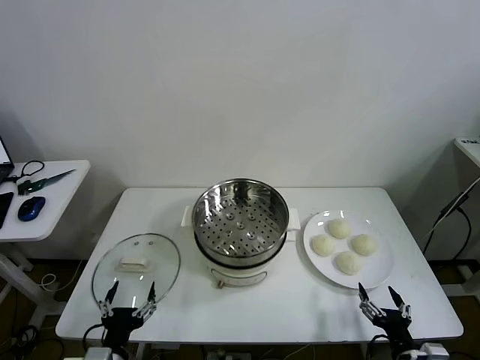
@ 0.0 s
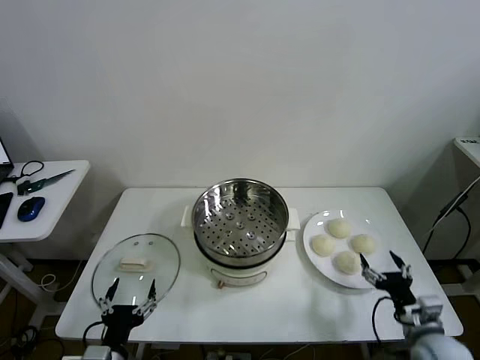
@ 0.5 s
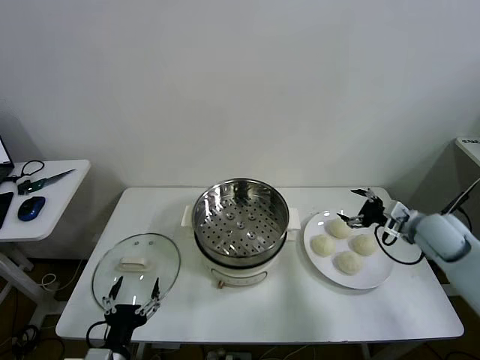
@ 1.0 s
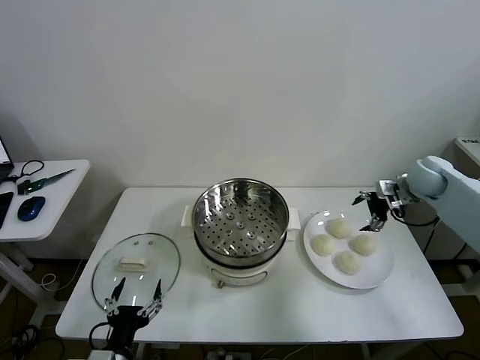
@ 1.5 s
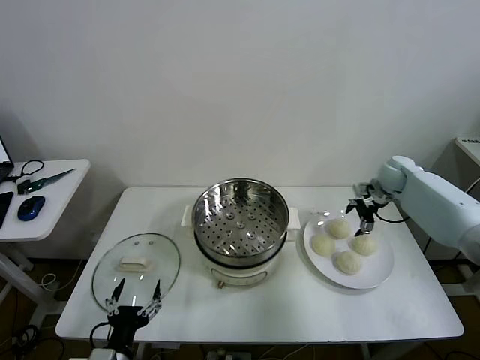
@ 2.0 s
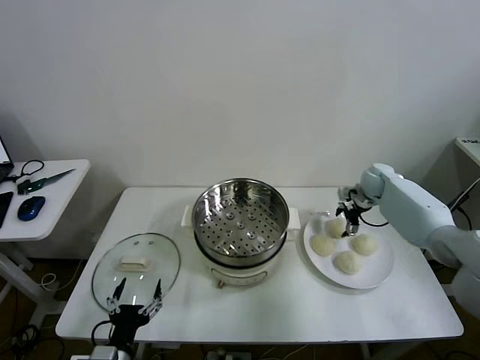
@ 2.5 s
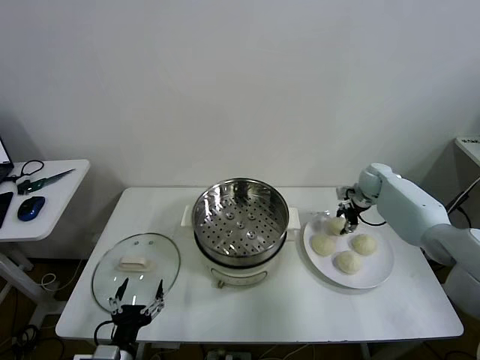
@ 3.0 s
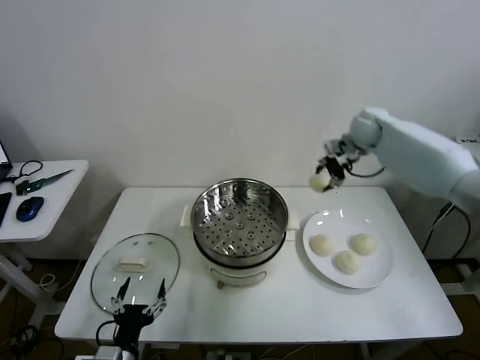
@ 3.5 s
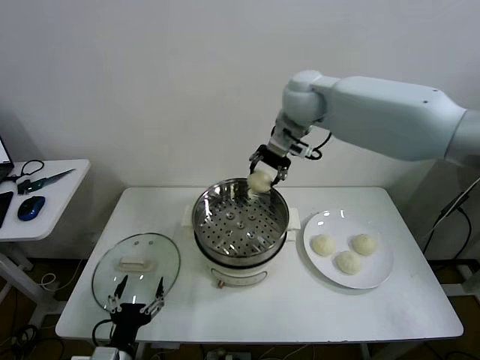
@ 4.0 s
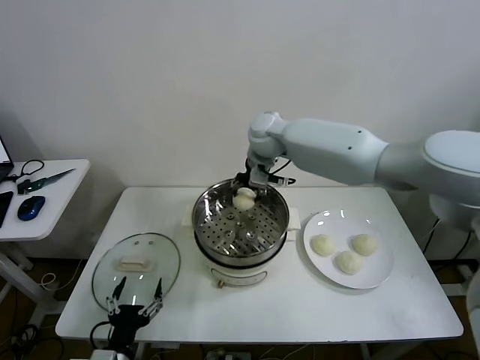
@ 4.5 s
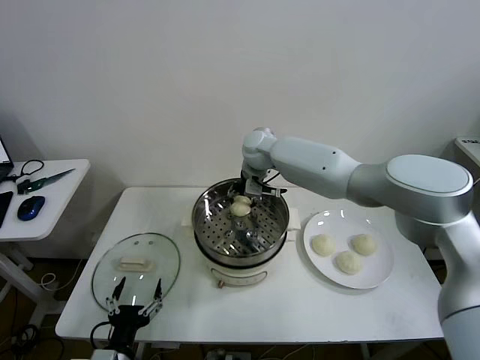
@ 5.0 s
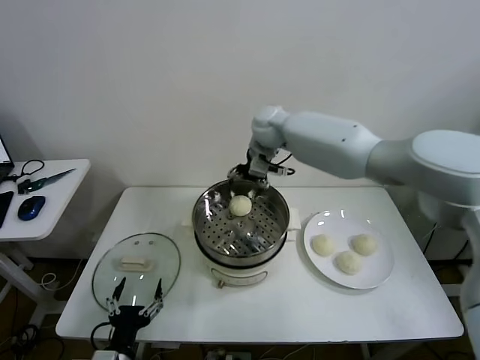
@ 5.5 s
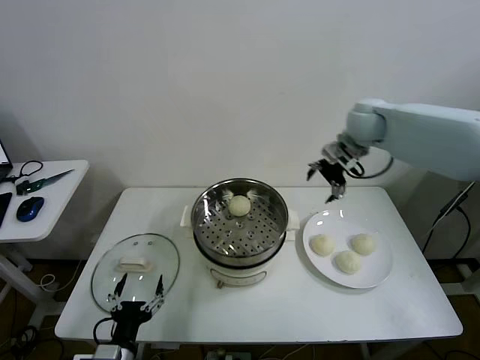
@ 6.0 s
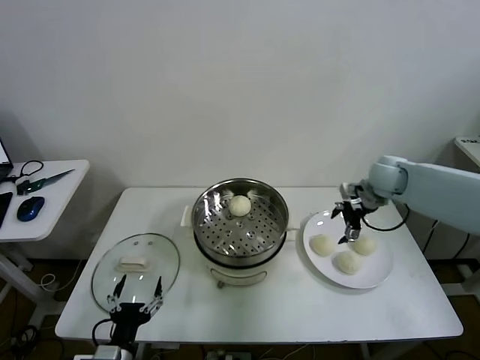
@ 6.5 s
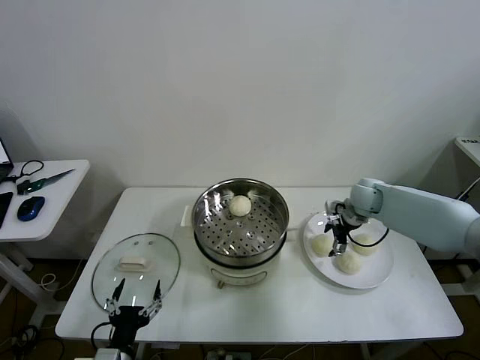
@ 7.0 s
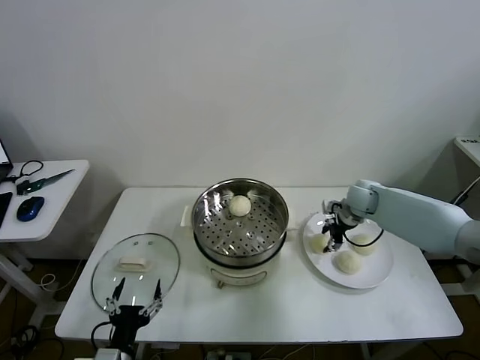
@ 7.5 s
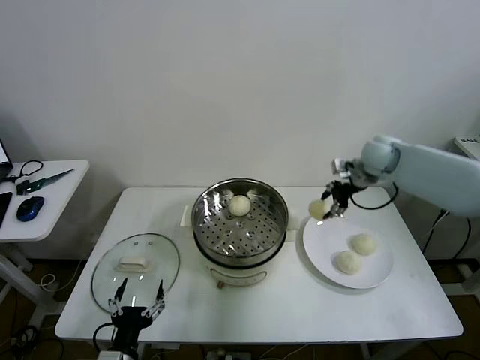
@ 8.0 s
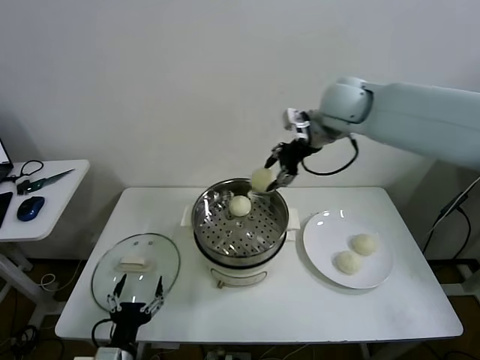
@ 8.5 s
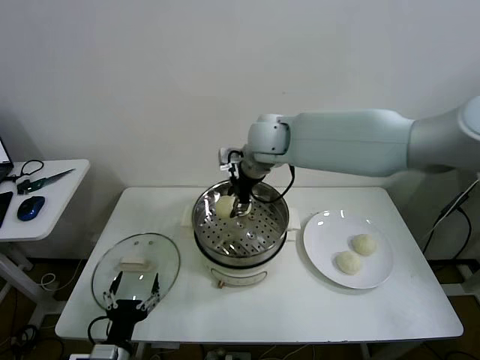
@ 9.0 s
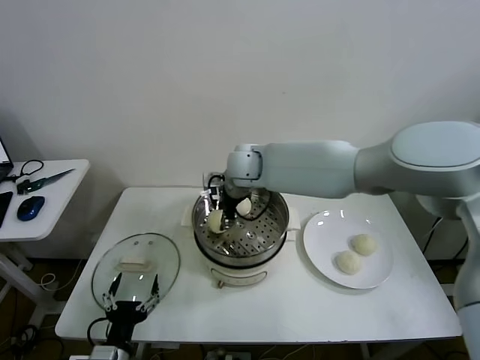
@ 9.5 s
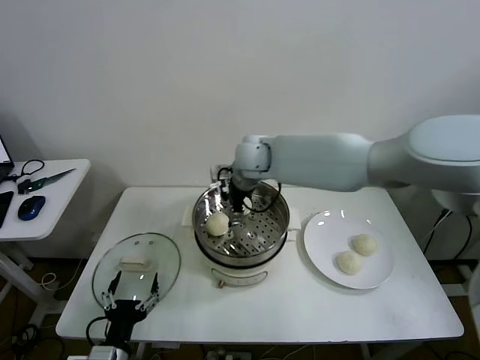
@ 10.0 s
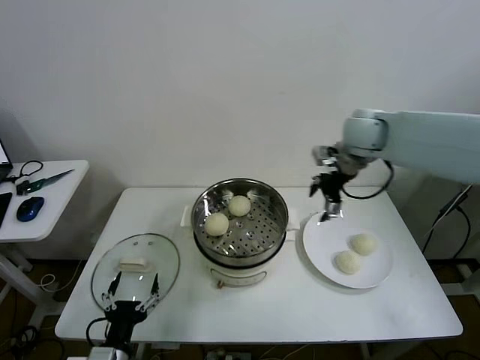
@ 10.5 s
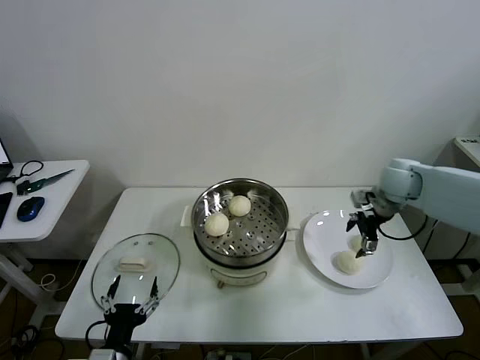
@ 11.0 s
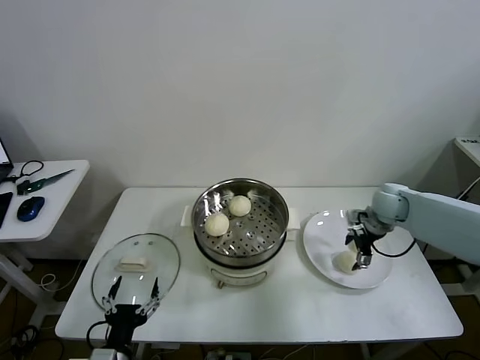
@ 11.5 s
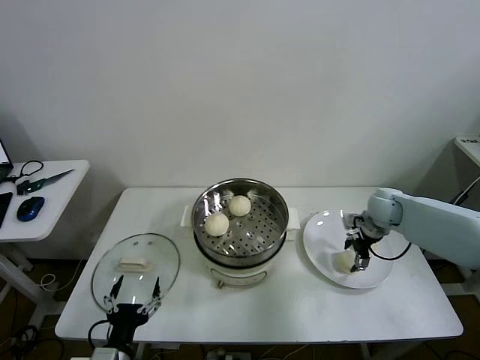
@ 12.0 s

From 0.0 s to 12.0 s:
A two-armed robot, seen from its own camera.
Task of the whole recording: take steamed baozi put them in steamer then cover it.
Step, from 0.0 s to 2.5 s: Grasp the baozi in the plate with right gripper.
Step, from 3.0 s to 5.0 s: Place the baozi on the steamer with right gripper.
Step, from 5.5 s to 7.0 s: Grasp the baozi in the plate with right gripper.
Step, from 7.5 s to 9.5 s: Place the baozi on the steamer with right gripper.
From 2.0 s to 4.0 s: The right gripper is displaced to the left and upward by approximately 40 cm, and closes up.
From 4.0 s to 6.0 s: The right gripper goes about 20 cm to the right, and opens its fingers.
From 6.0 s to 8.0 s: The right gripper moves roughly 20 cm downward and comes back, and closes its fingers.
From 8.0 s to 10.0 s: The right gripper travels to the left by about 30 cm, and opens up.
From 10.0 s to 12.0 s: The right gripper travels to the right and downward by about 35 cm.

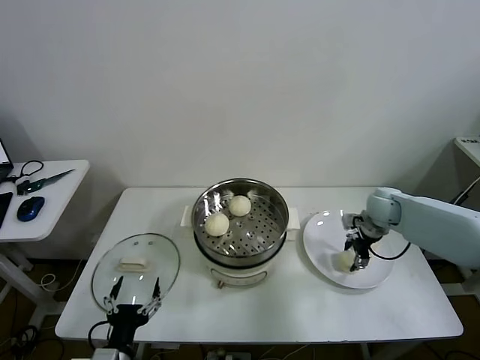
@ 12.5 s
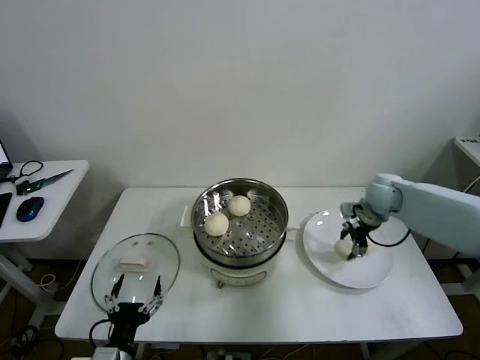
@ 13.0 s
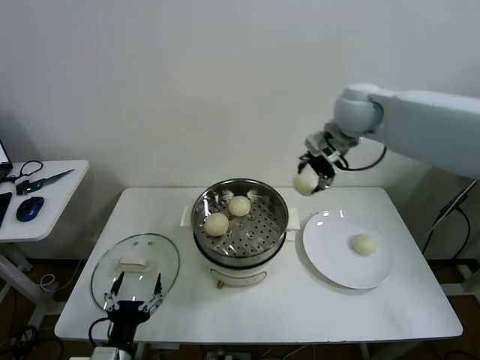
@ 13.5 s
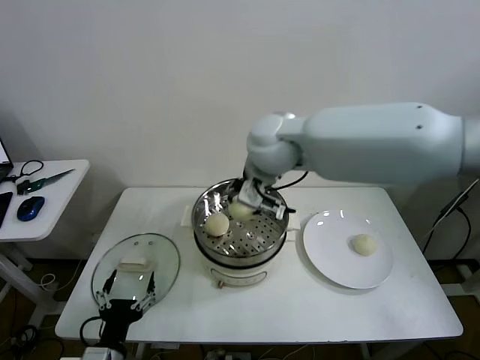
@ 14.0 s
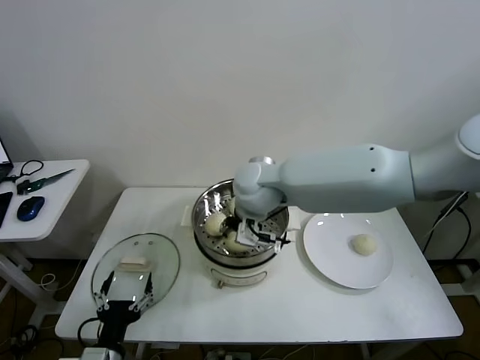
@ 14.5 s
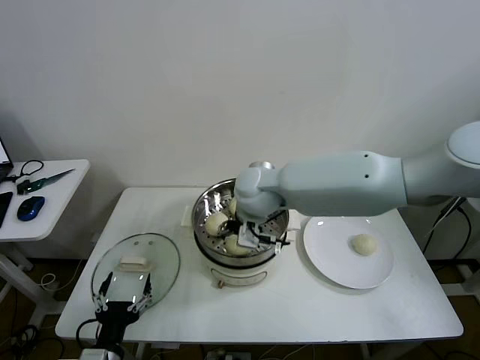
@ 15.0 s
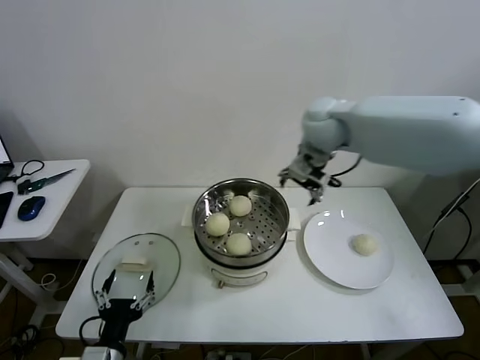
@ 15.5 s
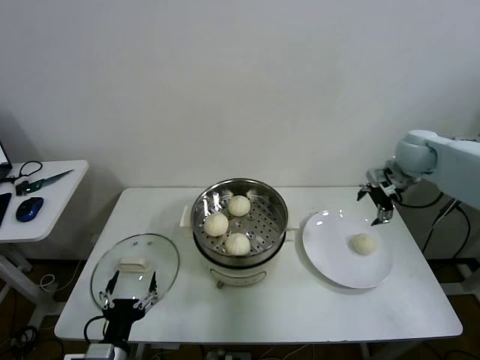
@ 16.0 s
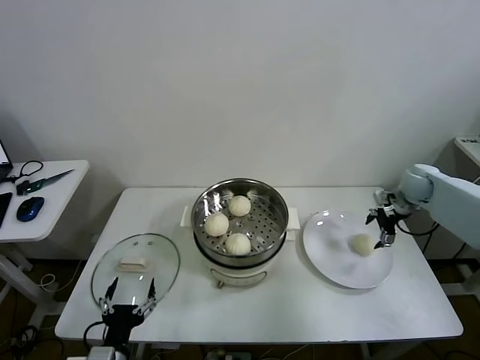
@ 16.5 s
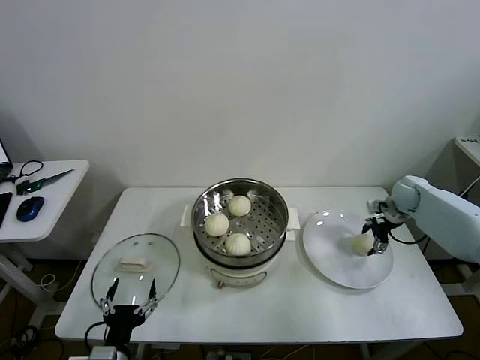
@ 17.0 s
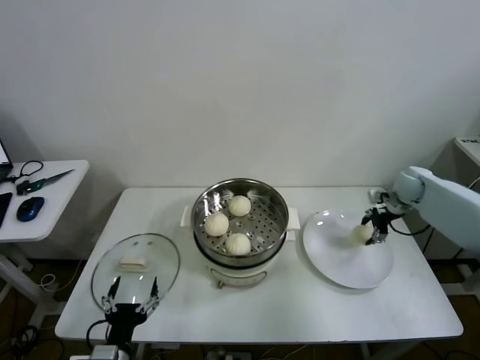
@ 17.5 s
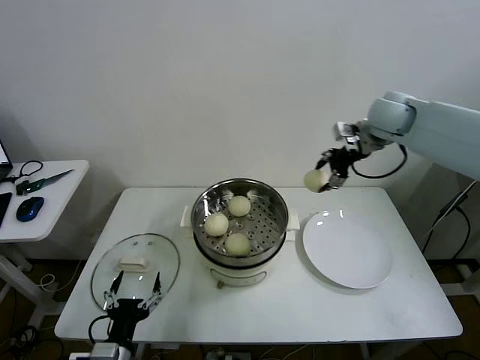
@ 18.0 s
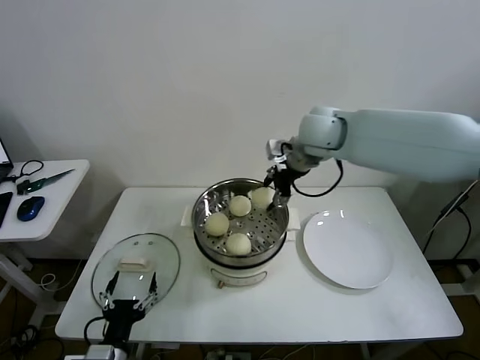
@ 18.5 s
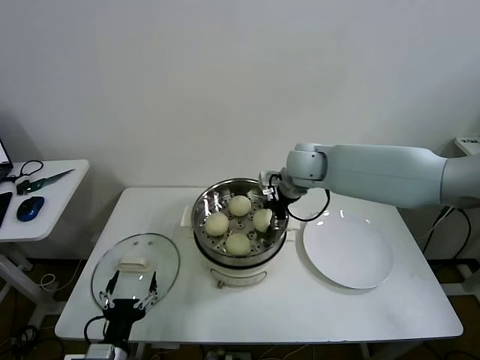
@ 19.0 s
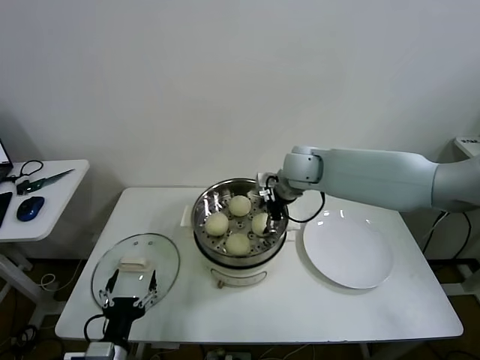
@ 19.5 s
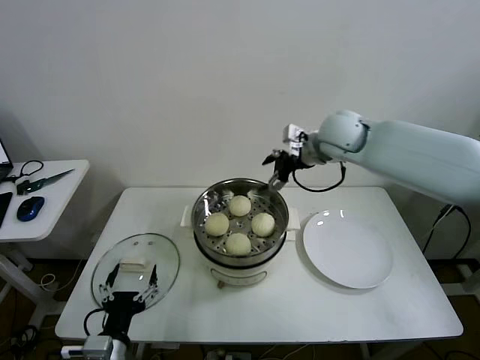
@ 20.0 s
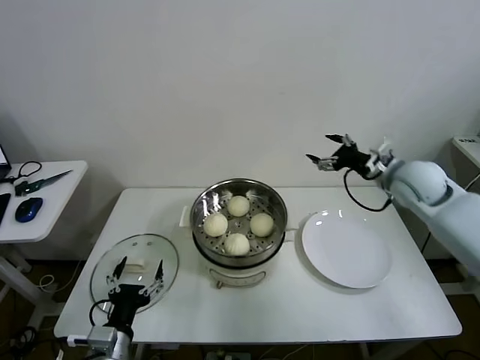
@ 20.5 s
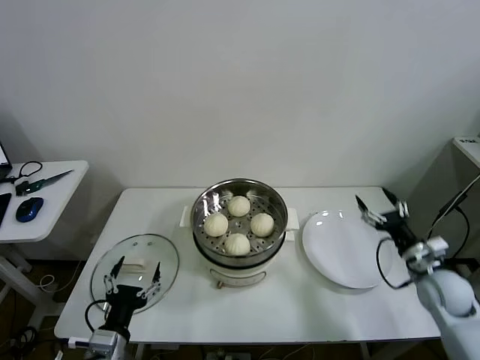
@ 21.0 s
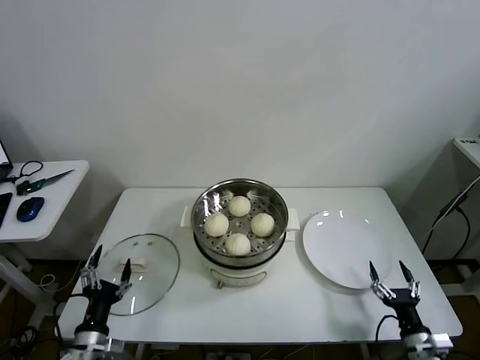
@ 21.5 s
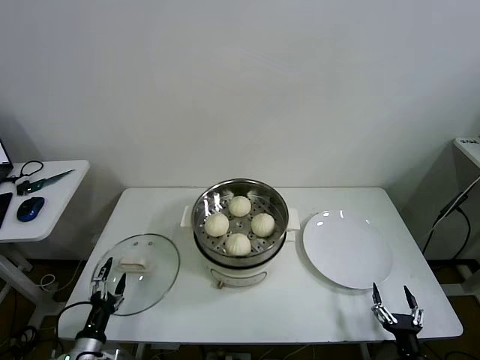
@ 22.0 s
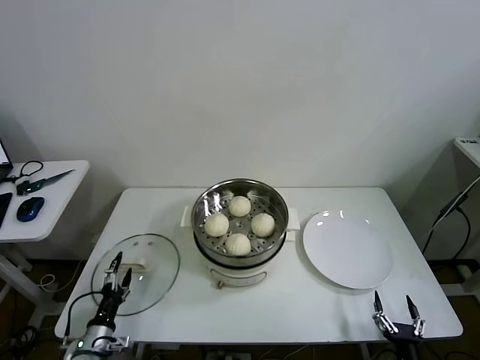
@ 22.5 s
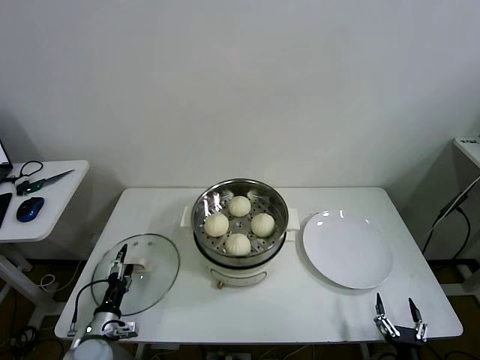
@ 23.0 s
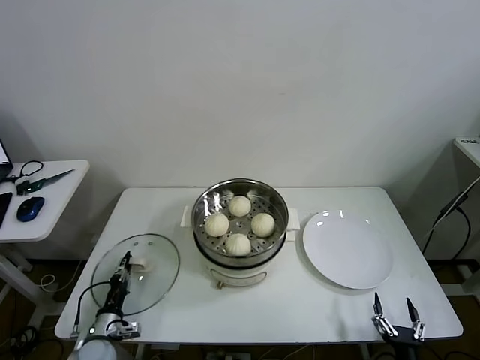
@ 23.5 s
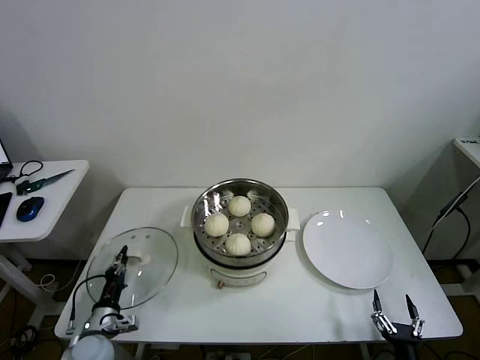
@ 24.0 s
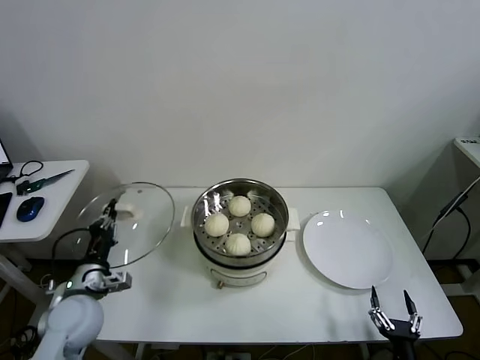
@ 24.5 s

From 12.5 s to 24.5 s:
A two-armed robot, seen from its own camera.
Task of the whole recording: take steamed baozi put them in steamer then cover it.
Step, from 12.5 s to 14.5 s: Place the baozi on the steamer with right gripper.
Step, from 15.5 s to 17.0 s: Grasp the baozi in the plate with right gripper.
Step, from 17.5 s to 19.5 s: Place the baozi on the steamer with right gripper.
Step, from 20.0 s to 23.5 s: Grasp the pot lid with left gripper.
From 12.5 s to 14.5 s: The right gripper travels to the left and upward by about 35 cm.
From 14.5 s to 16.5 s: The right gripper shifts some 40 cm to the right, and opens up.
From 16.5 s to 18.5 s: The right gripper heads to the left and upward, covering some 35 cm, and closes up.
From 18.5 s to 20.5 s: The right gripper is displaced to the right and downward by some 20 cm, and opens its fingers.
From 20.5 s to 22.5 s: The left gripper heads downward and to the left, covering some 20 cm, while the right gripper goes roughly 50 cm backward and downward.
From 22.5 s to 24.5 s: The left gripper is displaced upward and forward by about 15 cm, and closes up.

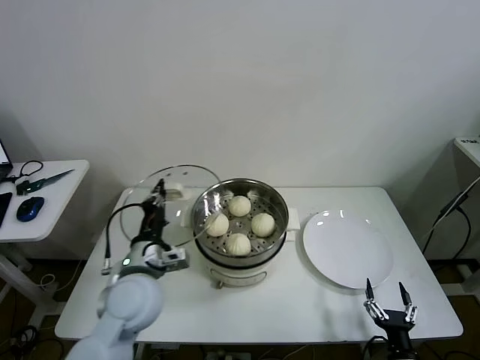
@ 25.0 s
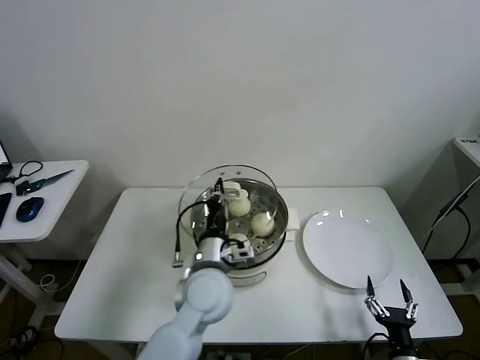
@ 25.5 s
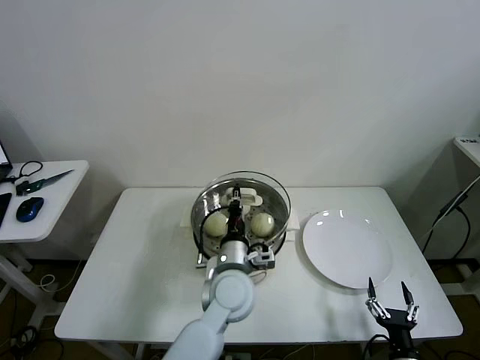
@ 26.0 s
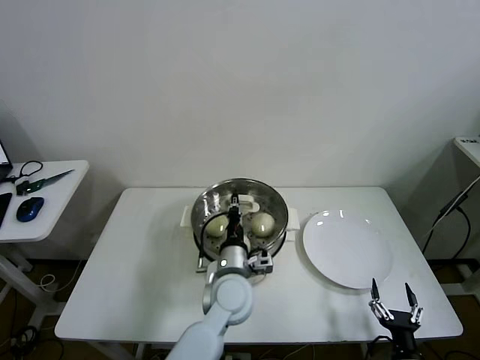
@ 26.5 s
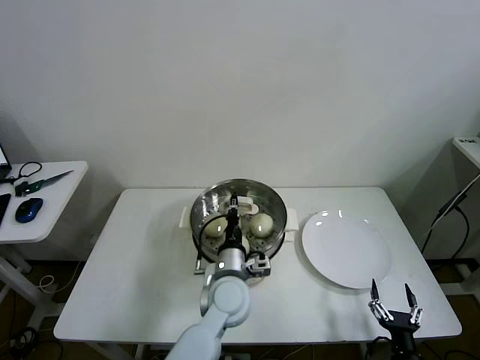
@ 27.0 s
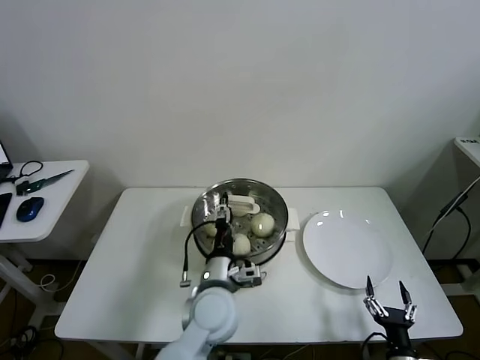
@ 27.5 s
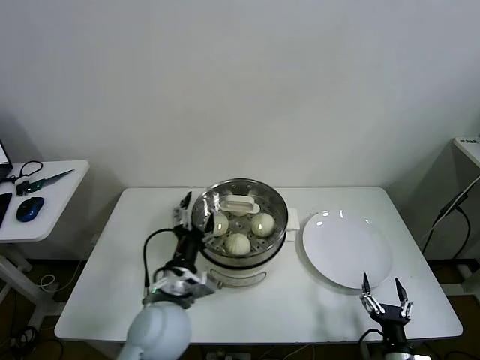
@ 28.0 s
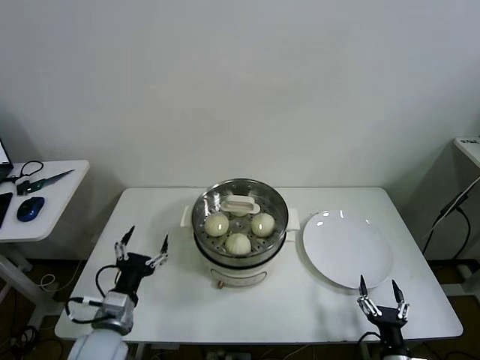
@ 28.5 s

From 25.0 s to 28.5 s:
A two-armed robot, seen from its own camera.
Task of the whole recording: take steamed baozi put them in steamer then cover it.
Step, from 25.0 s to 27.5 s: Place the pot lid on the steamer with left gripper.
From 25.0 s to 27.0 s: The left gripper shifts about 20 cm to the right and downward.
From 27.0 s to 28.5 s: The left gripper travels to the left and backward by about 25 cm, and opens.
